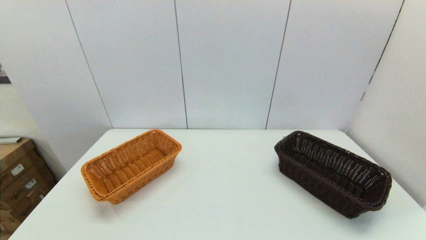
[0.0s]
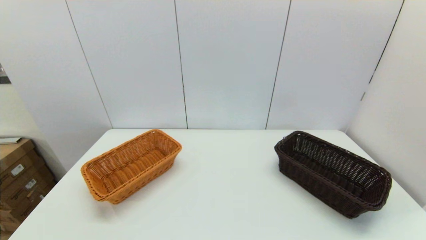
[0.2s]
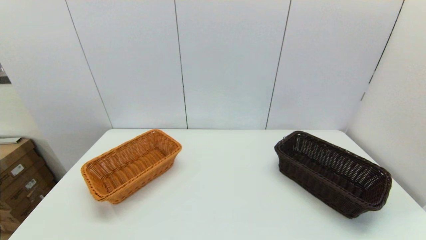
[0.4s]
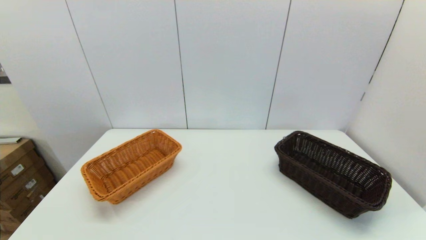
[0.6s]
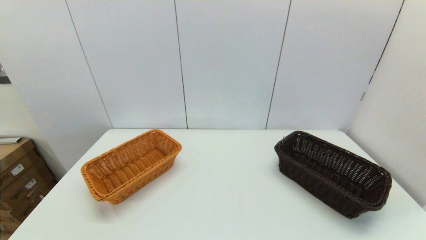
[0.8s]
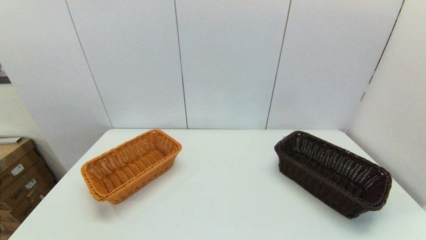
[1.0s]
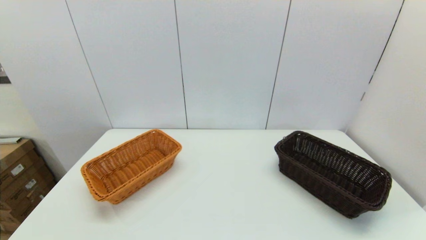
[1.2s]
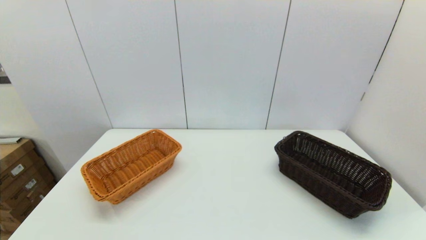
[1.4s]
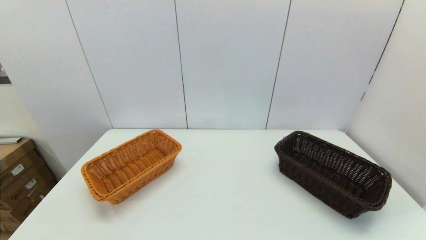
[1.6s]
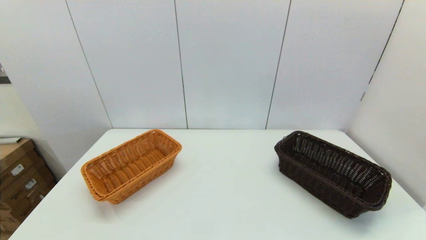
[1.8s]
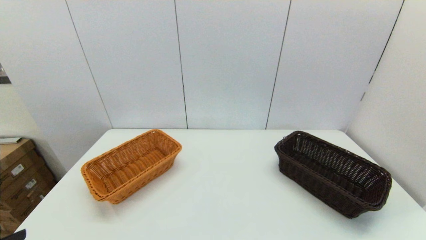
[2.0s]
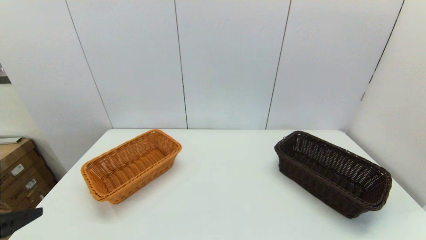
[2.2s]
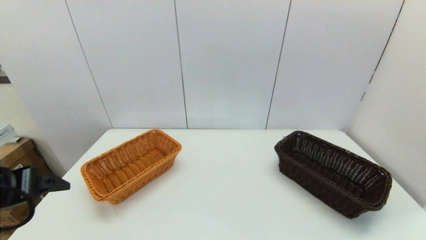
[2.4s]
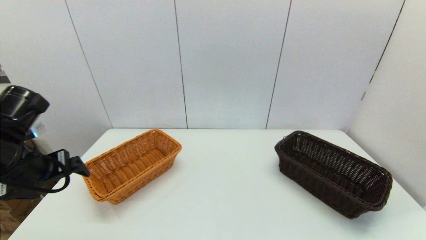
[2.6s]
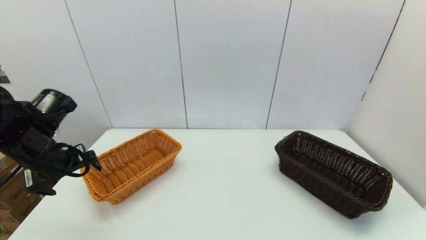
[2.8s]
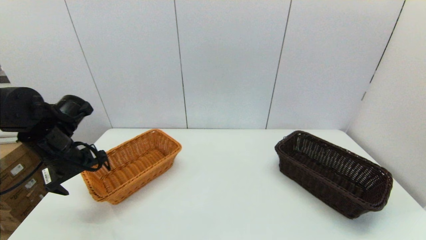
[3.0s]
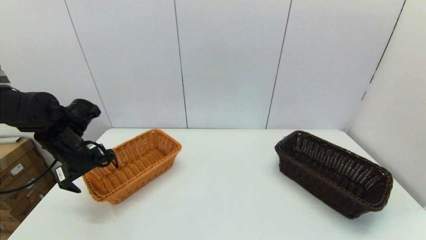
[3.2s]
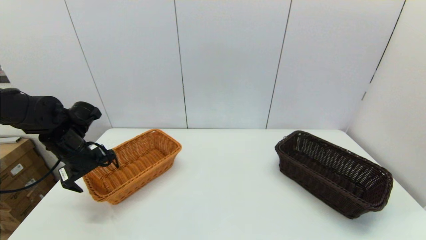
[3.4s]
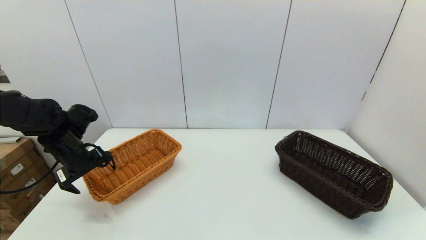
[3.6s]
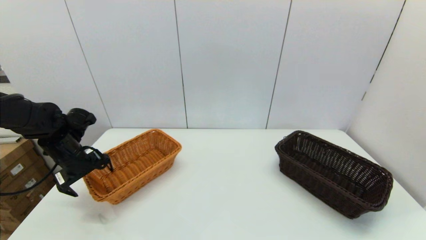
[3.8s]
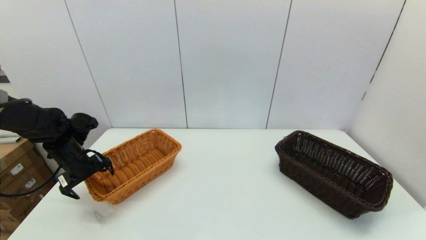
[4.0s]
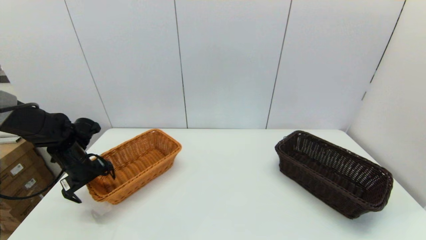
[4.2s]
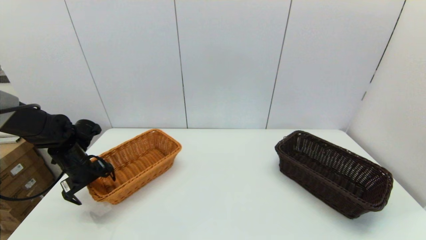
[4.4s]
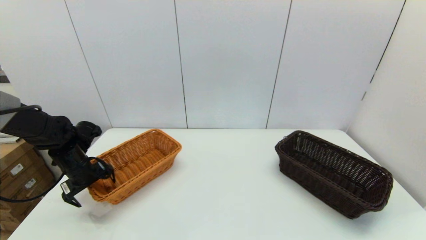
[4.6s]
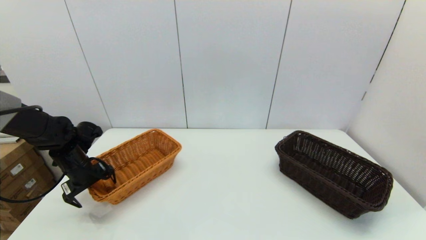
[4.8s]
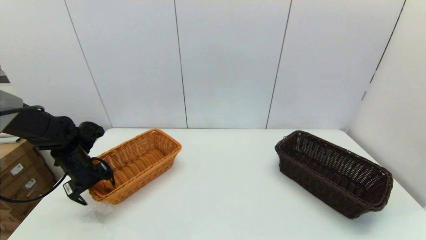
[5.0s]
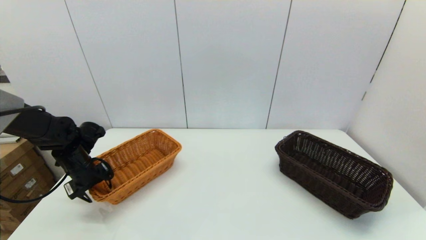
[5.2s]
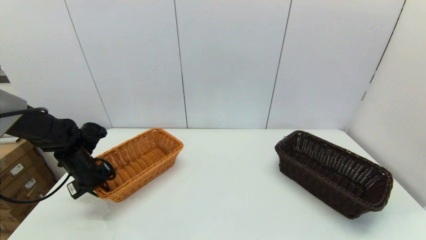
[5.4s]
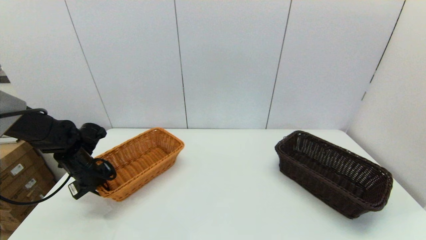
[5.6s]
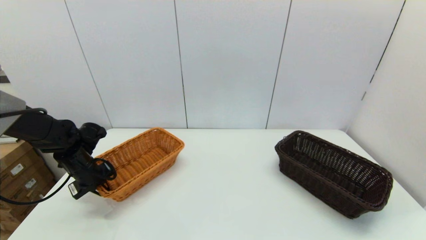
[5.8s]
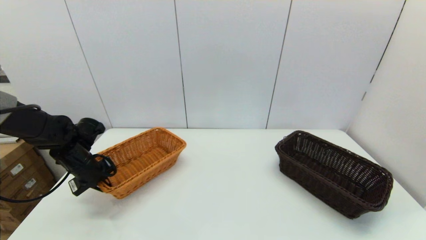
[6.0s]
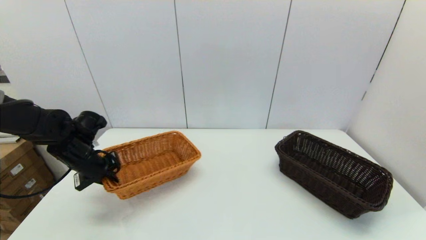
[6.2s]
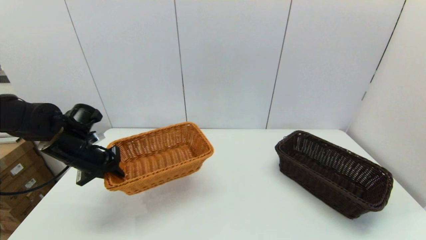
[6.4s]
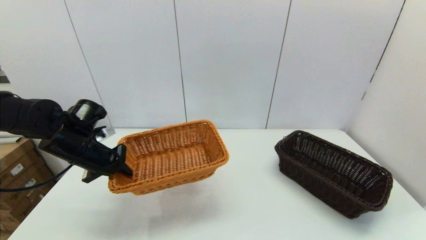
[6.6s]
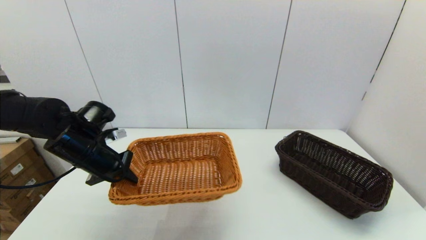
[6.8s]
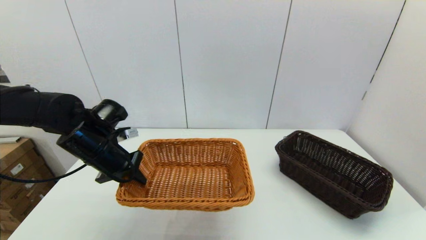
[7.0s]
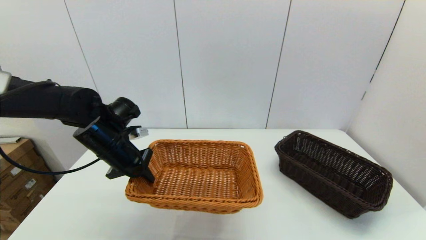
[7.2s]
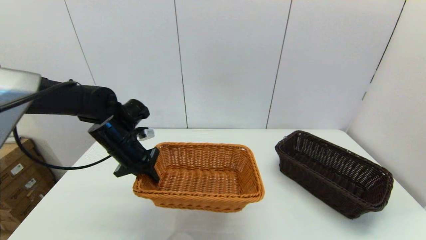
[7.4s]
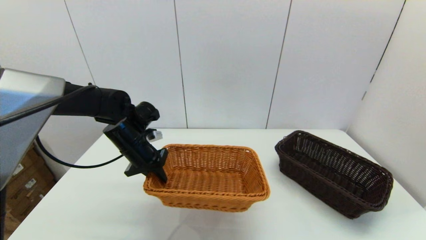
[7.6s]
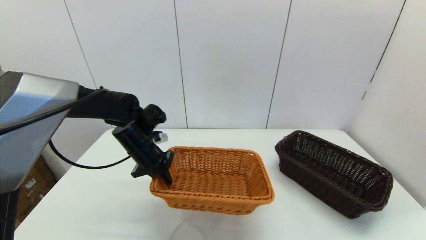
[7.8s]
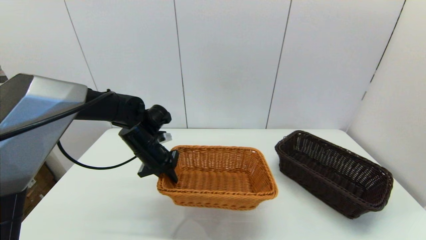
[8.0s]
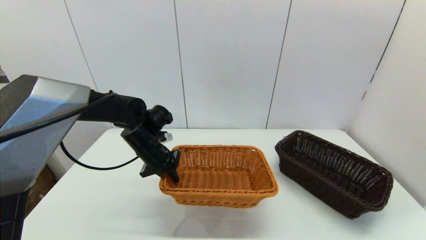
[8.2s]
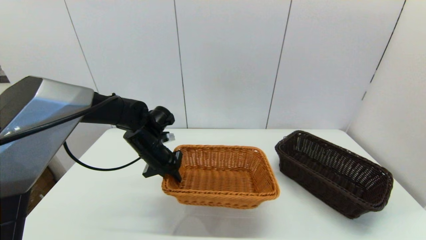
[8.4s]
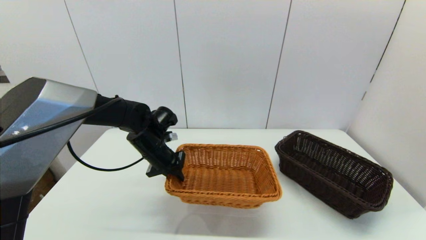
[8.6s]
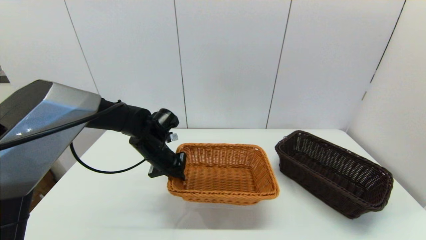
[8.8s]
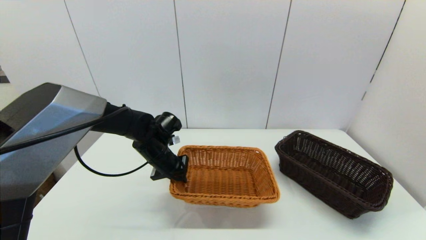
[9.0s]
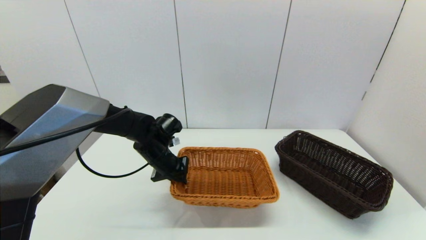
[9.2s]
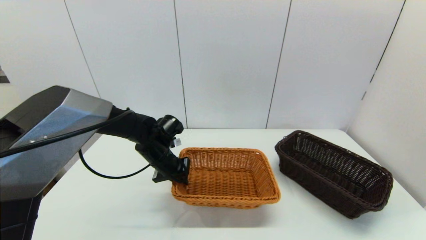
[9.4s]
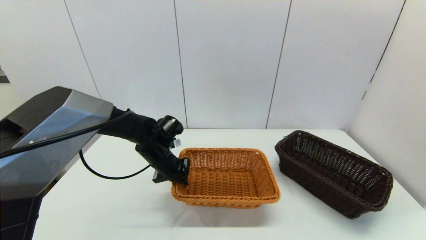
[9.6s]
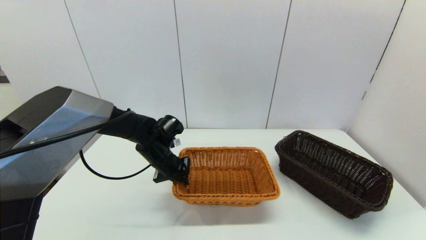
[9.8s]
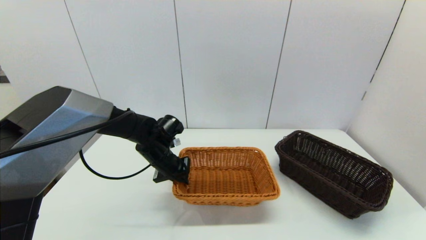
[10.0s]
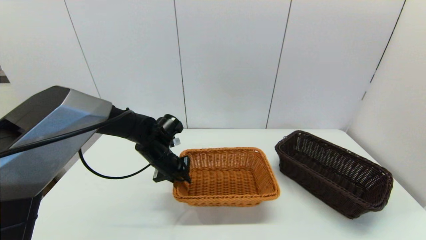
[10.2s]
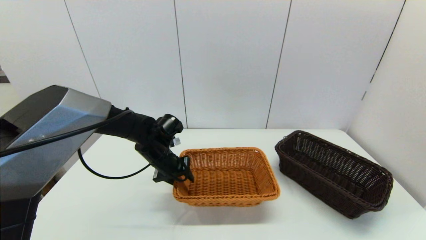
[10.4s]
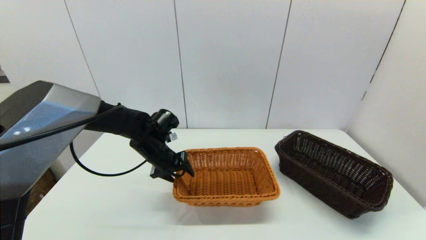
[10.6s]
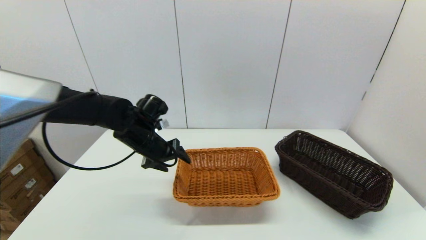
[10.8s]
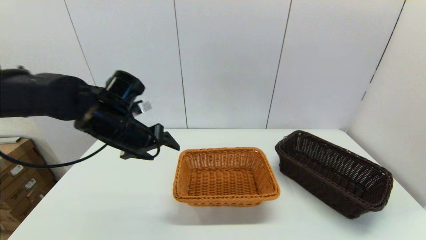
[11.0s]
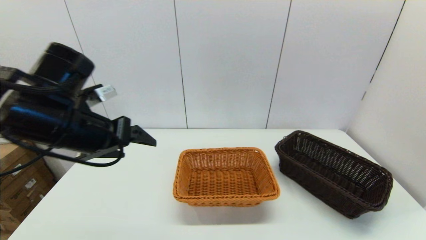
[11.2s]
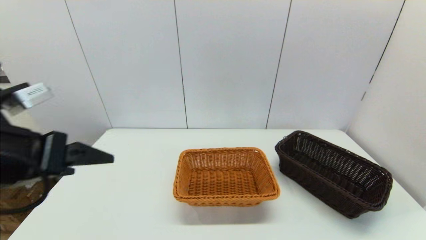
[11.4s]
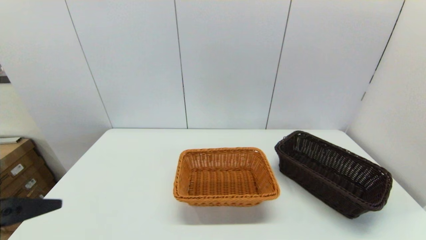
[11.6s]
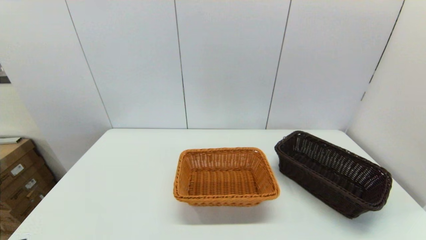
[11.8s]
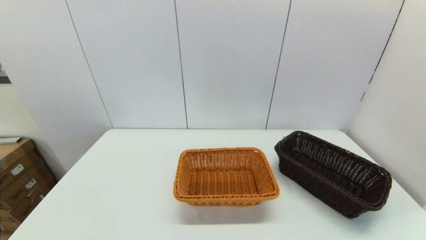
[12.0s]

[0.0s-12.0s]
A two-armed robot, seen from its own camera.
Task of the whole recording: stack a basket on top of another basket.
Step, 1.8s to 6.0s: Grasp the light basket with the left gripper.
Step, 6.4s to 10.8s: Place the light basket on the middle of the table with the left gripper.
1.6s to 3.0s: The left gripper is displaced forward by roughly 35 cm.
3.0s to 4.4s: The left gripper heads downward, covering roughly 10 cm.
4.4s to 6.0s: The left gripper closes its fingers.
6.0s to 7.6s: The left gripper is displaced to the right by roughly 15 cm.
7.6s to 9.0s: The left gripper changes place by about 5 cm.
9.0s to 10.4s: The left gripper opens up.
10.4s to 12.0s: The left gripper heads backward and to the left, covering approximately 40 cm, and opens up.

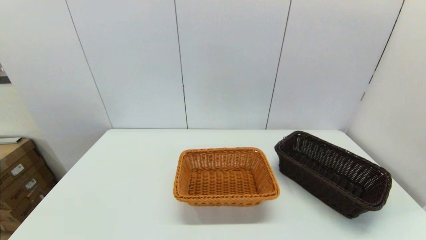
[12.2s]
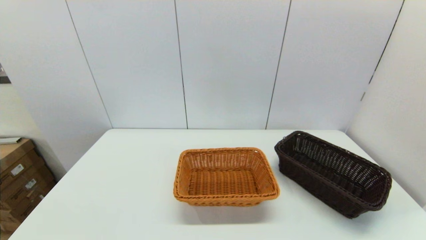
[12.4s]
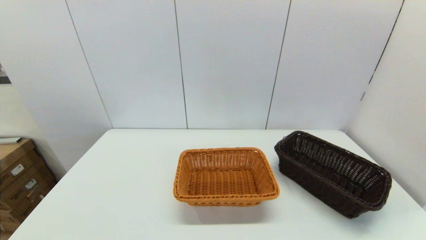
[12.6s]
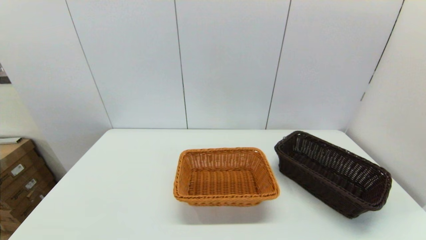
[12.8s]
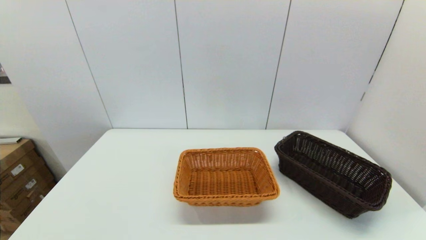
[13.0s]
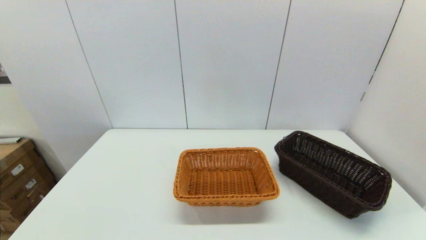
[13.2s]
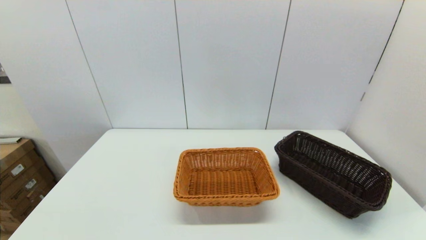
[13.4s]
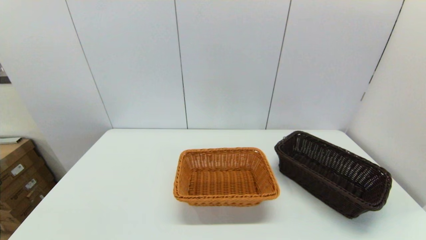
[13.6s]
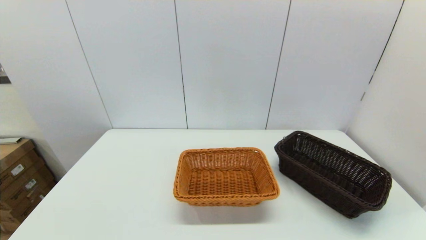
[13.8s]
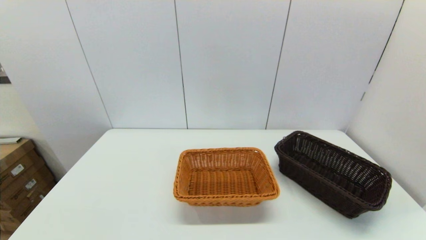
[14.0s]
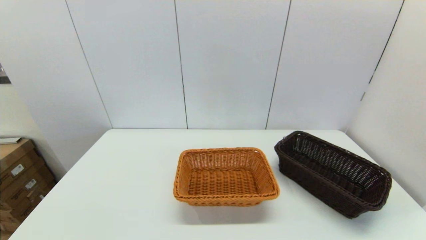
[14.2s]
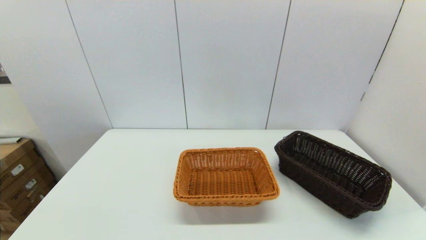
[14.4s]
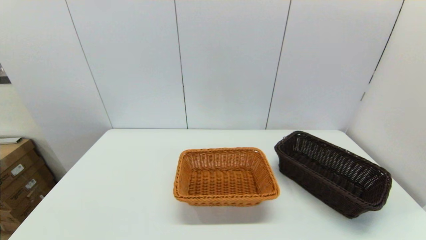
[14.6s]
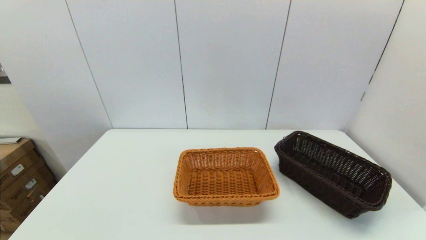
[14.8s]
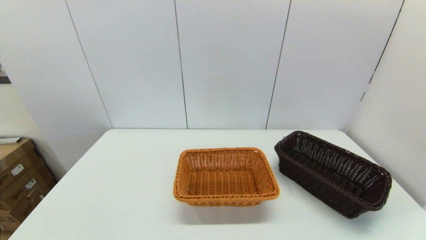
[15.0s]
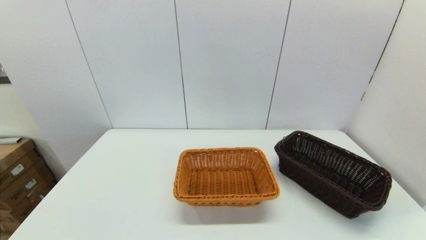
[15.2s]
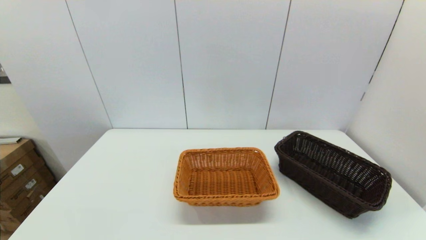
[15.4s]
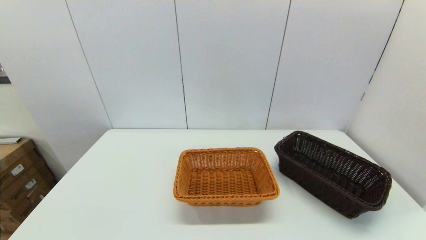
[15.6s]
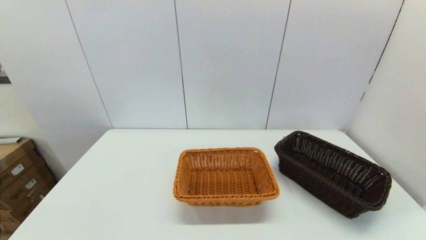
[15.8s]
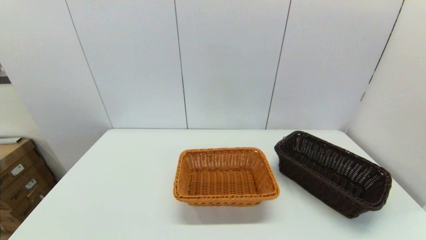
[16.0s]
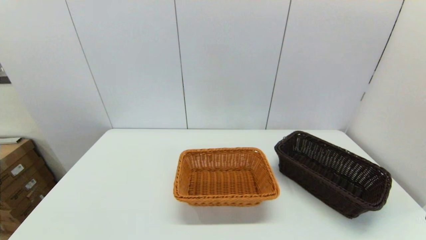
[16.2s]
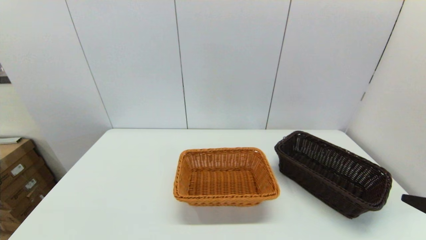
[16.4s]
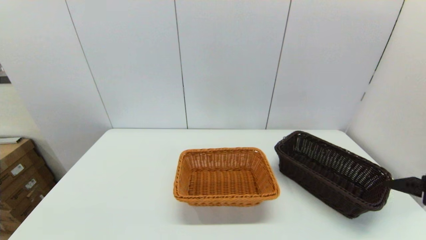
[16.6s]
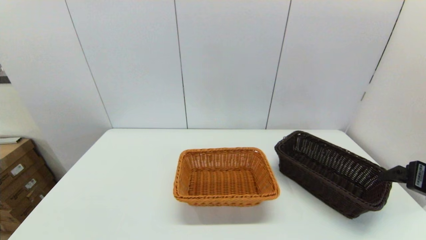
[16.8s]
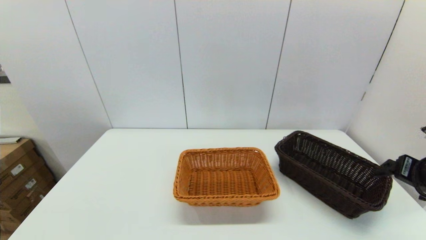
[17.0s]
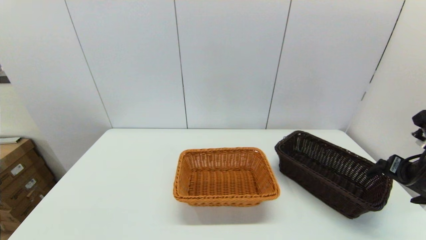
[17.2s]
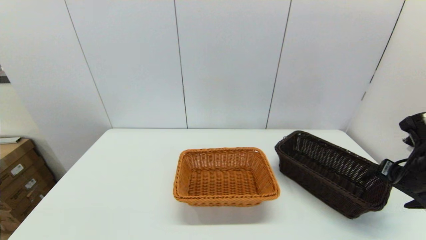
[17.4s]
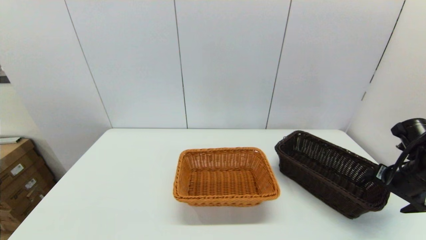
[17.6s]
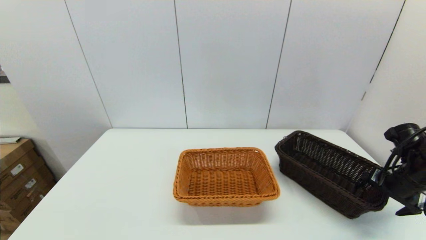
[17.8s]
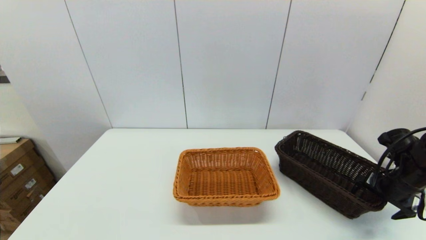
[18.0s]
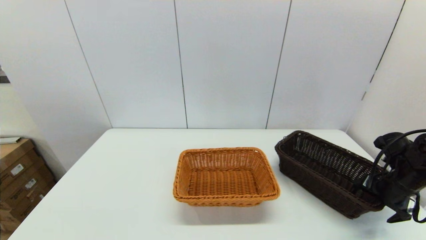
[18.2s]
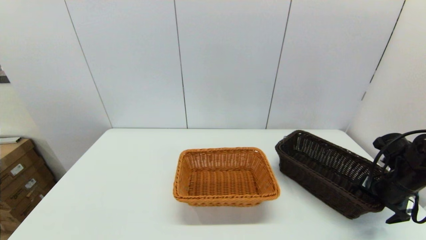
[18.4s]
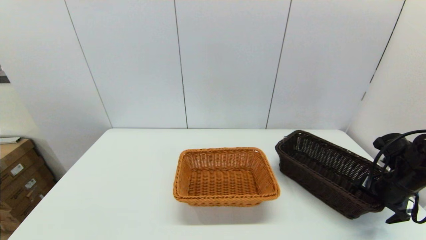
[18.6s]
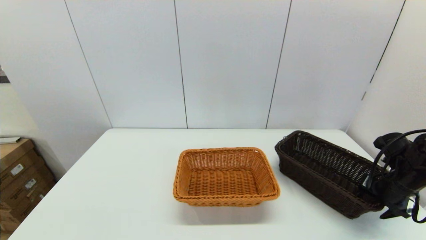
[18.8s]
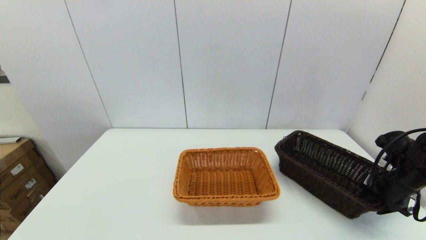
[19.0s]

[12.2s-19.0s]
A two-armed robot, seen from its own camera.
Task of the whole recording: stack a basket on top of another basket.
13.6s to 15.0s: Both grippers stay put.
16.2s to 17.6s: The right gripper is displaced forward by about 20 cm.
17.6s to 19.0s: The right gripper closes up.
